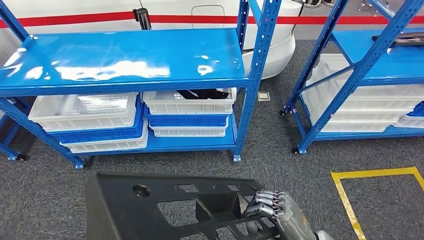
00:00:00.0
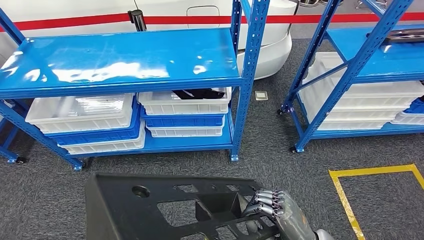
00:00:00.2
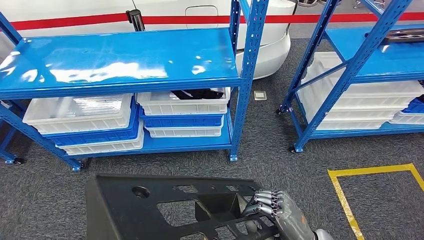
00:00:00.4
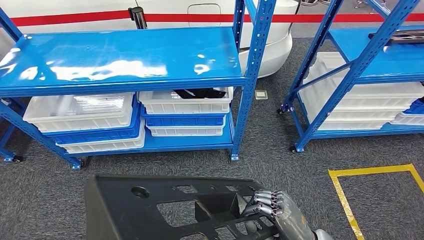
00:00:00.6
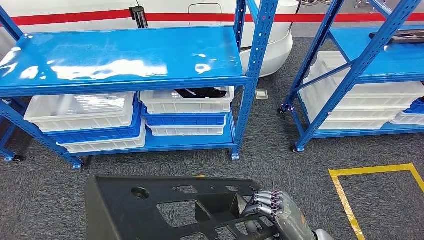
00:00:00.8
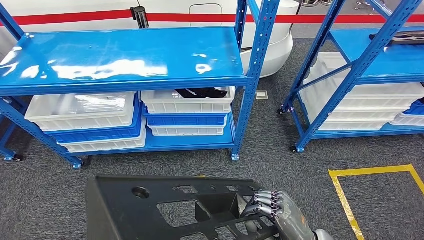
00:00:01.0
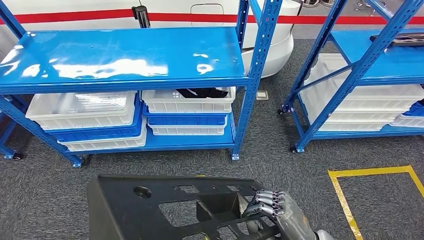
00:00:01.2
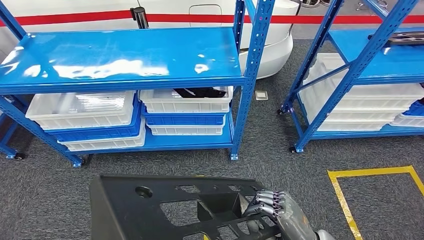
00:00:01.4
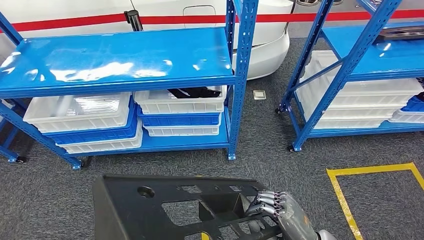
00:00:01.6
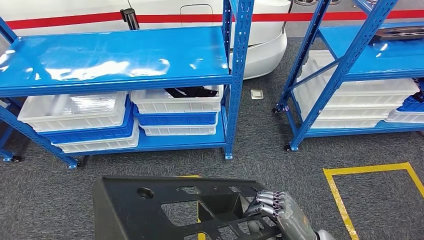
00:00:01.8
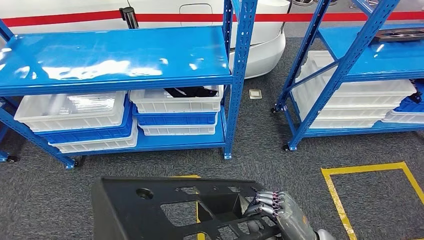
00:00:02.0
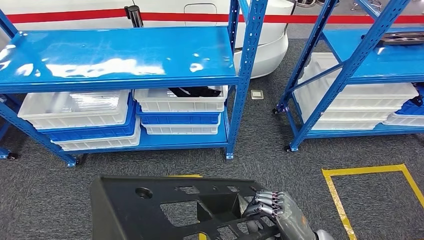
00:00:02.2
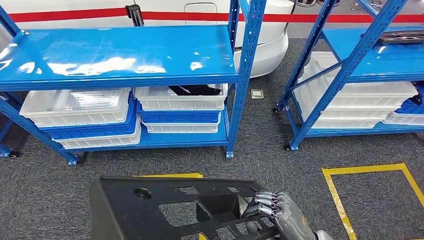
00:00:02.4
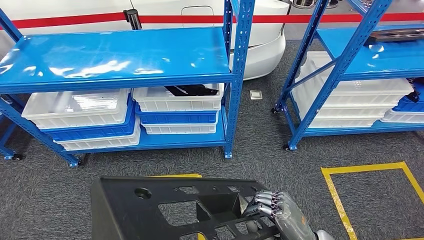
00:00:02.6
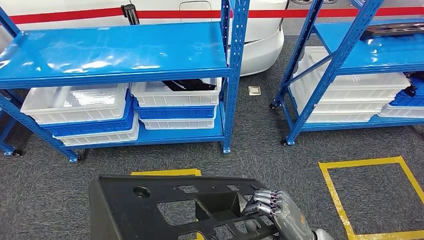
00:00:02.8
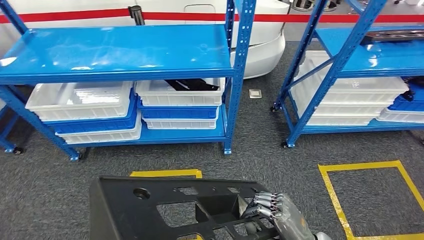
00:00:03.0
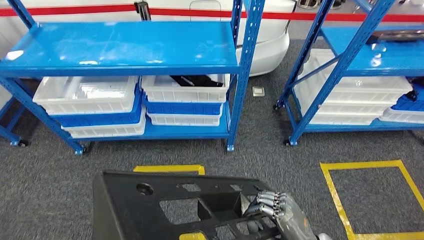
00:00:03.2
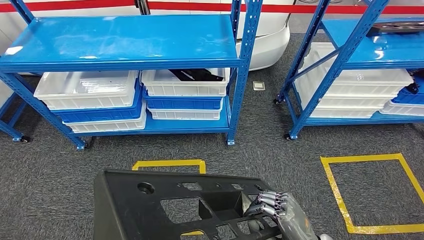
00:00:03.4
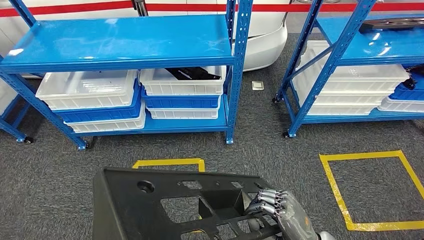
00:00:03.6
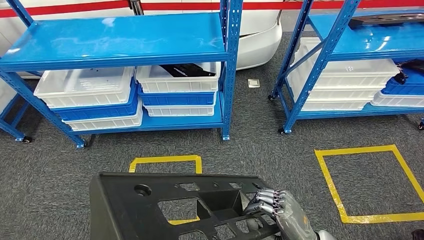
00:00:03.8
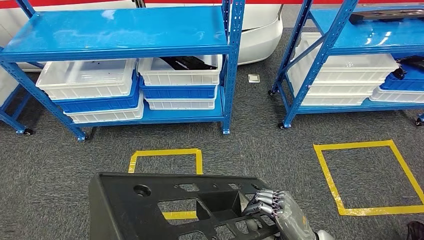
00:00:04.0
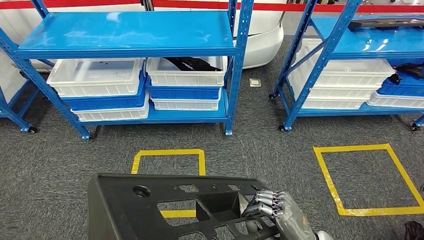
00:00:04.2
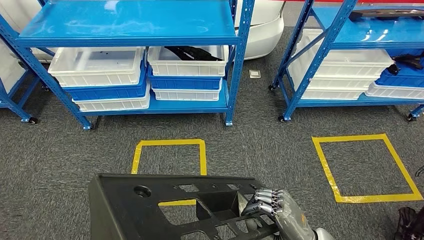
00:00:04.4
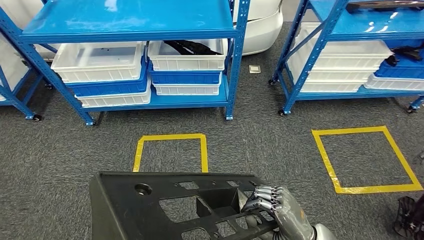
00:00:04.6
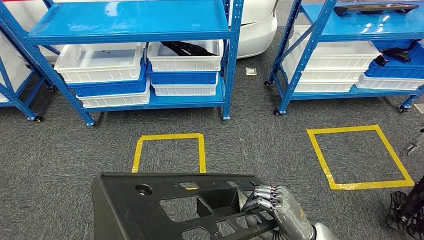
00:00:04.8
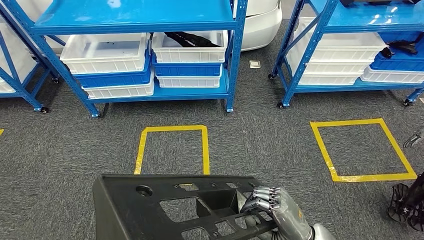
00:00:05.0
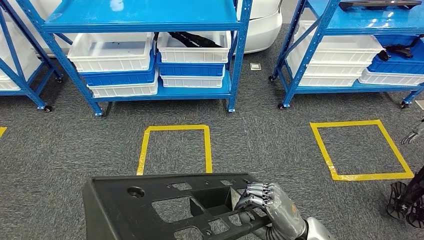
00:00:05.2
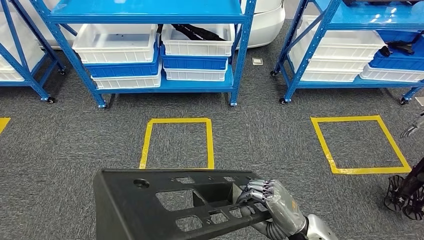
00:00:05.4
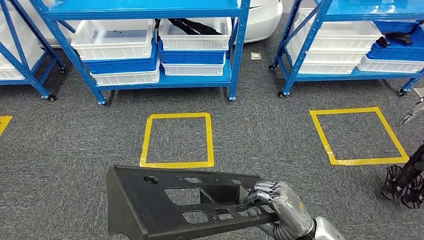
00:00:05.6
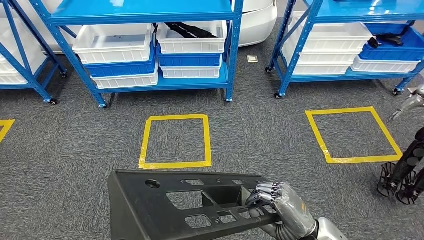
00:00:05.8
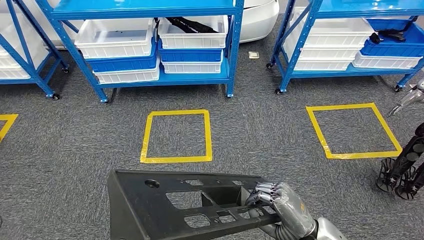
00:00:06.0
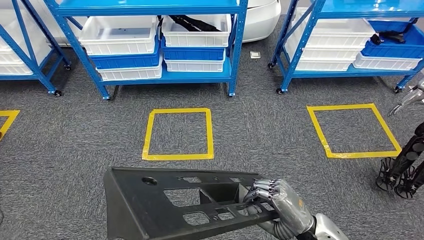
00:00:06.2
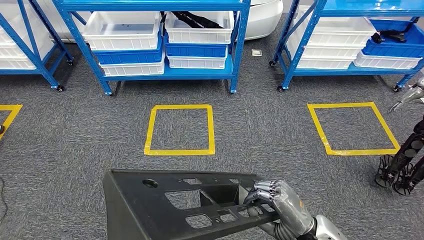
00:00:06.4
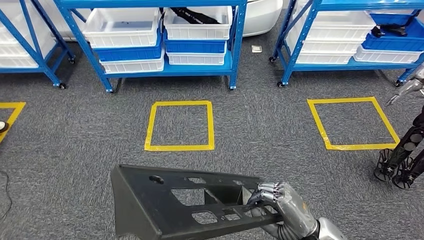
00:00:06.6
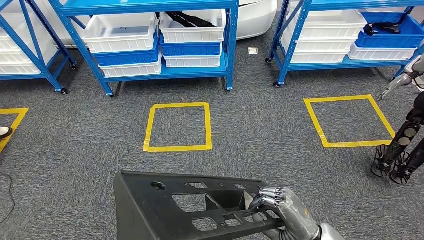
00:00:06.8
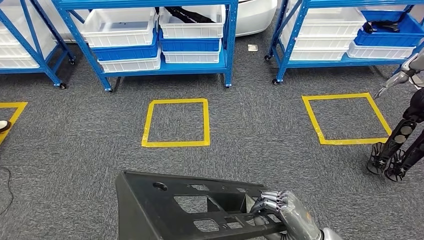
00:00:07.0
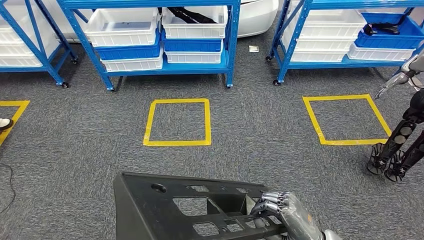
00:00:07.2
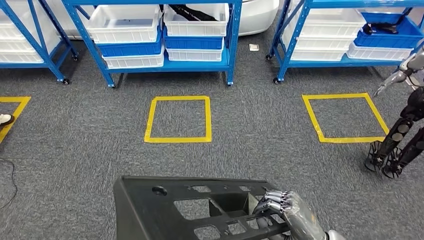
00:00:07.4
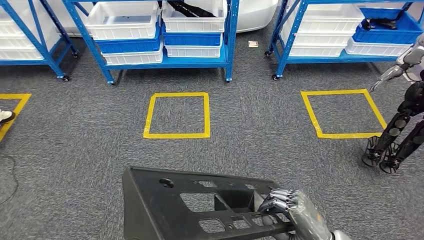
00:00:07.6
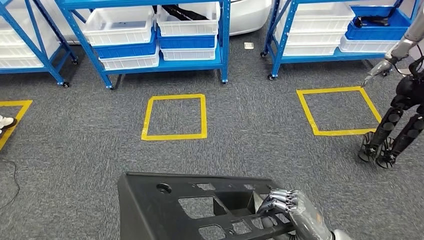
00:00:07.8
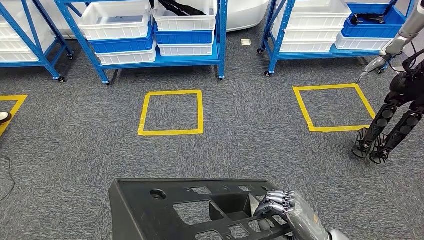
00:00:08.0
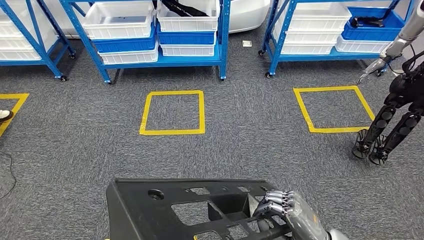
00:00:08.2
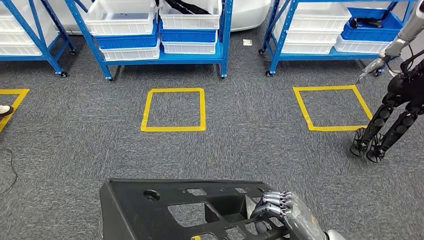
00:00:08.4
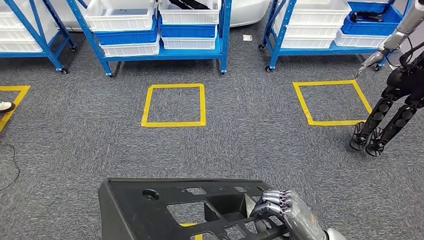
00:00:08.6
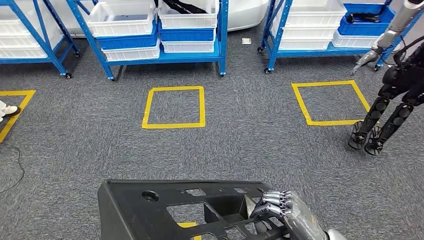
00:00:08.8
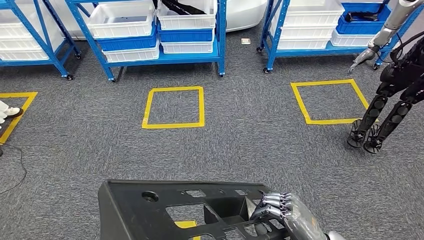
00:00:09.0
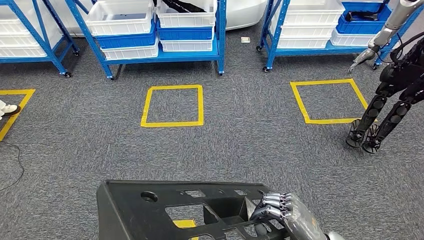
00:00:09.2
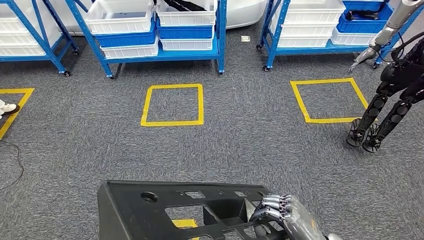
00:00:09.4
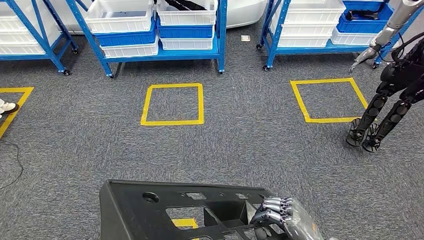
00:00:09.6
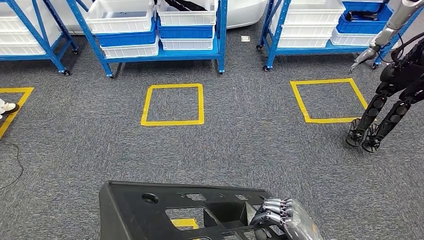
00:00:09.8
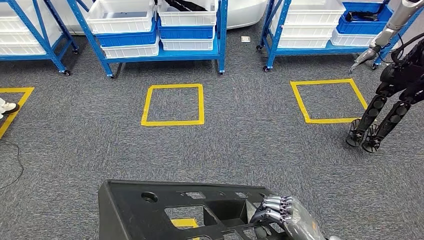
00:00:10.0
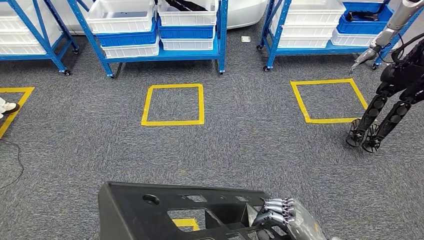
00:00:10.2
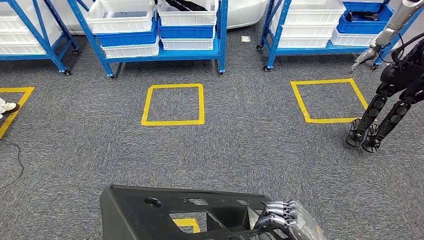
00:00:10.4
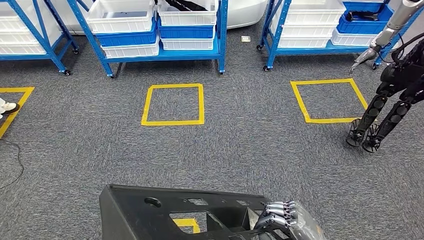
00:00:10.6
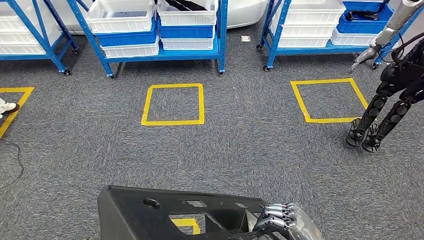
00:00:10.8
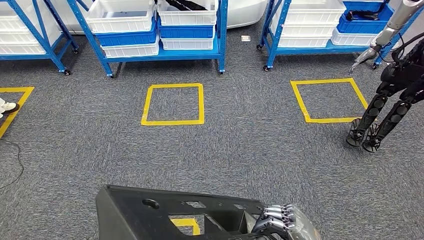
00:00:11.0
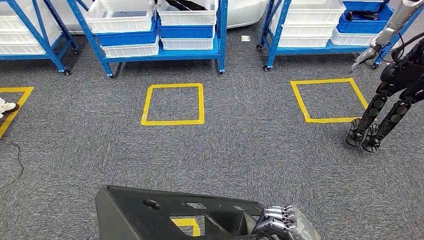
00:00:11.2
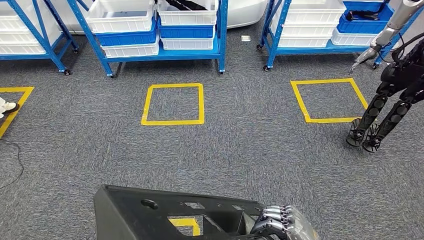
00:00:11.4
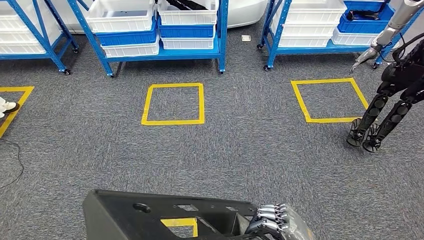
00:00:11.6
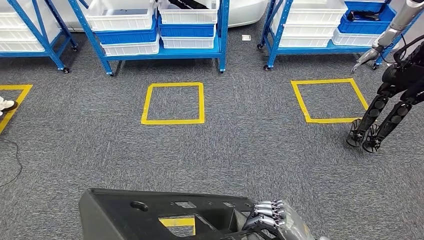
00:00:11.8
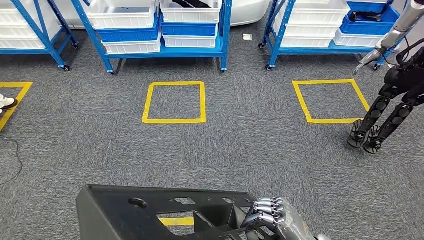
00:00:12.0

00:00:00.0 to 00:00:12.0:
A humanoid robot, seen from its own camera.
00:00:09.0 to 00:00:10.4: There are only small adjustments of the hands.

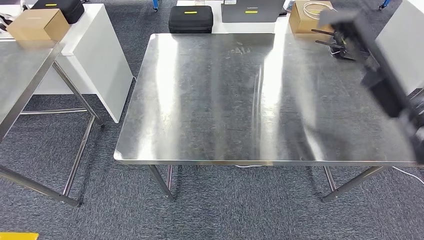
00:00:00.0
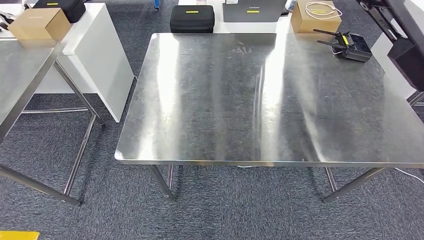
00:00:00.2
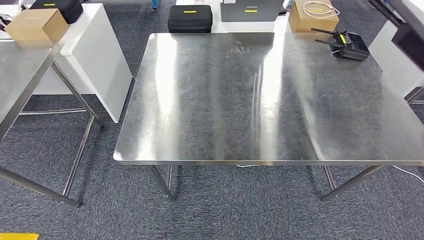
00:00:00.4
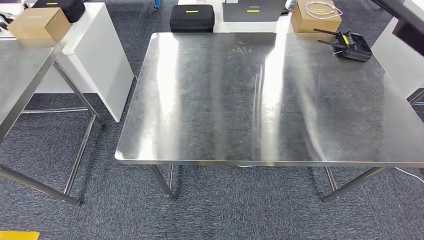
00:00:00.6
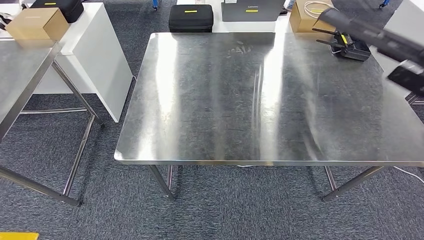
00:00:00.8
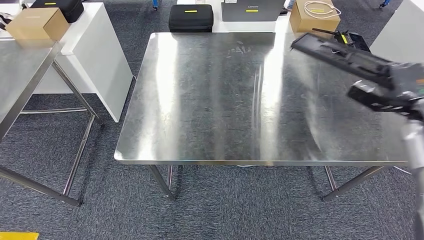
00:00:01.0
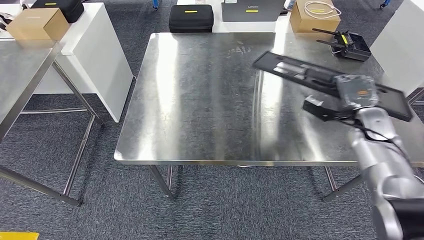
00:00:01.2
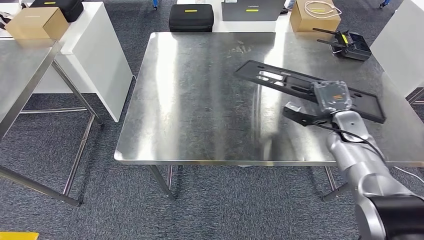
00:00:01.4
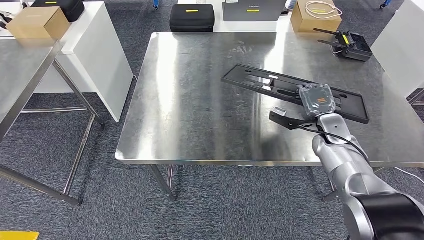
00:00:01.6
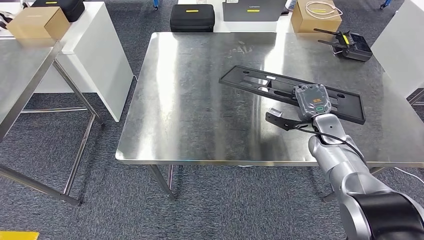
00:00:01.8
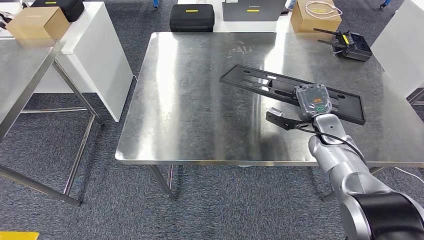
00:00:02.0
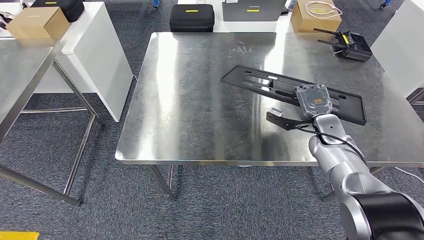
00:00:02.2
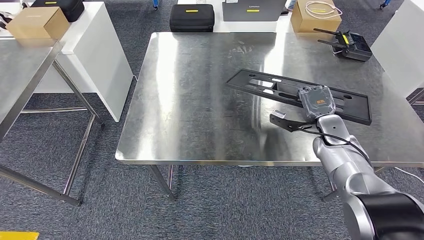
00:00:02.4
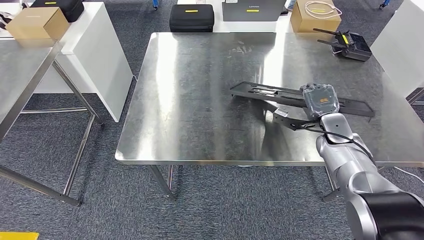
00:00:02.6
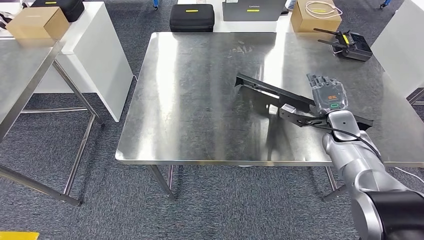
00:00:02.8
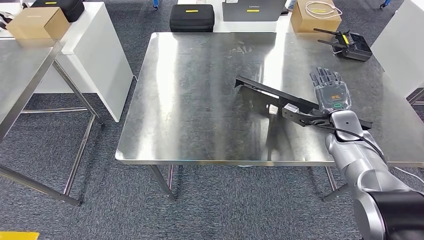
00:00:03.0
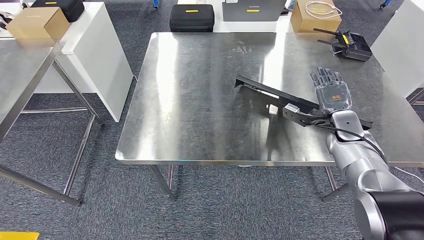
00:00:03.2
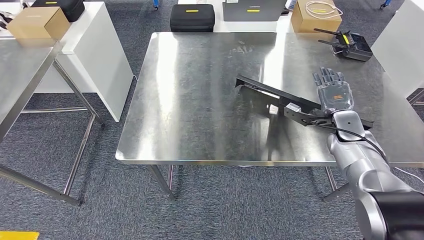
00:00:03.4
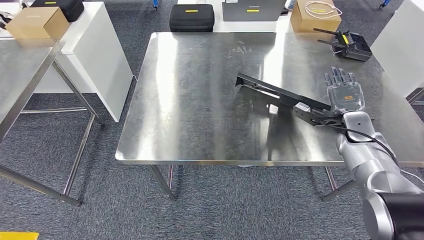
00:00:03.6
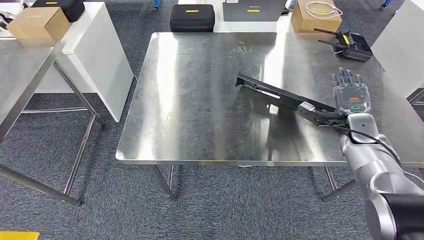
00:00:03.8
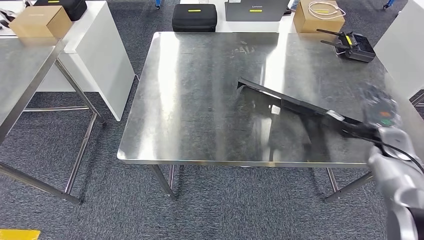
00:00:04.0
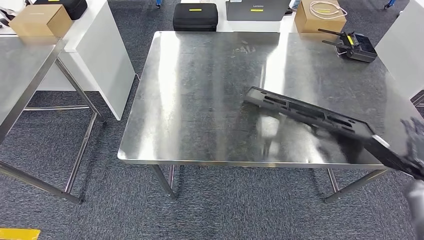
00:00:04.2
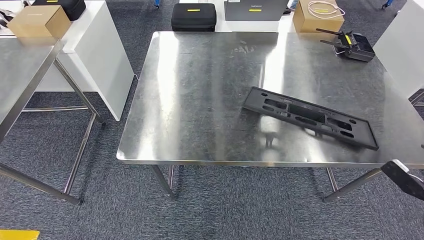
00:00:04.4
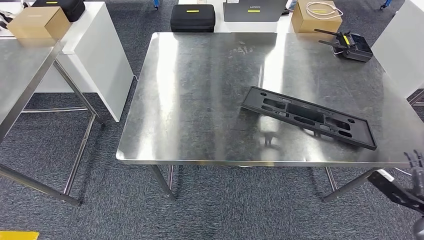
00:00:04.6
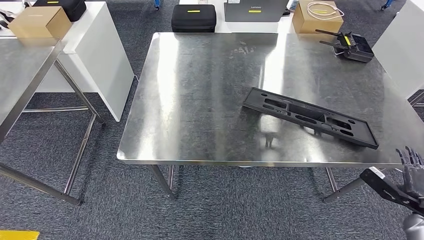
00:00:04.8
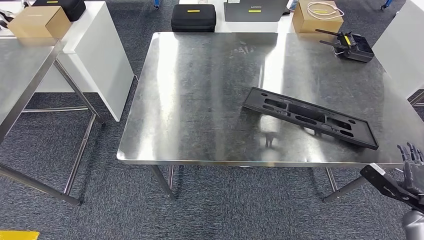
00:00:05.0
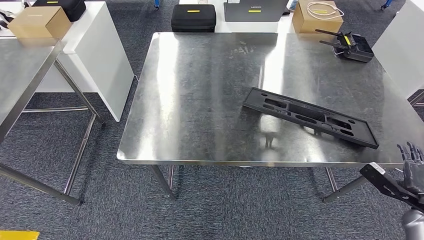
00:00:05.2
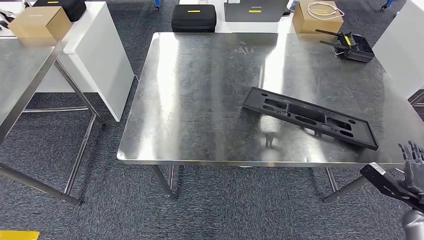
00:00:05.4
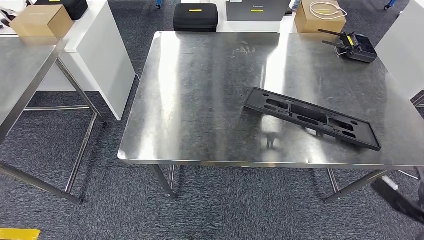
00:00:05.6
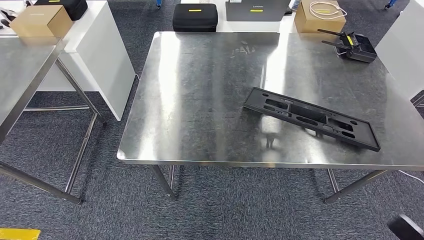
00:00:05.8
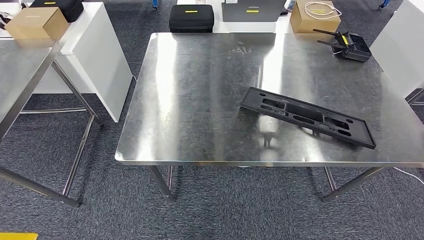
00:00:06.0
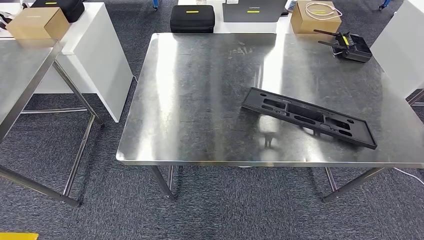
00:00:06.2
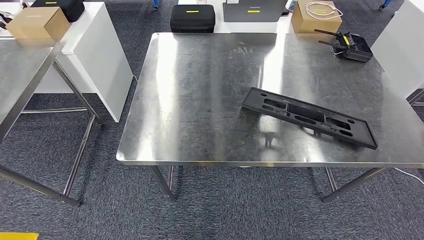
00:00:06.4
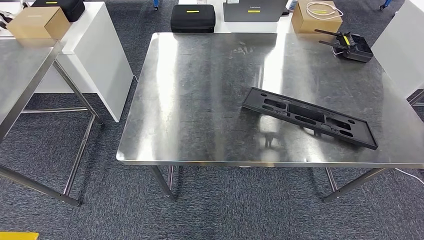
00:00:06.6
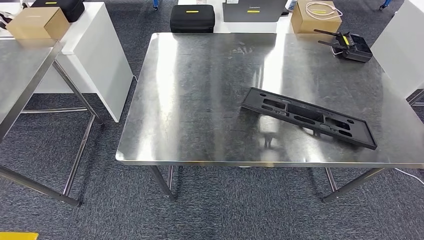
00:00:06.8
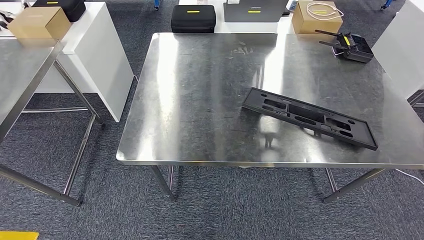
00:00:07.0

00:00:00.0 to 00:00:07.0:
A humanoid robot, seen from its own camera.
Step, 00:00:00.0 to 00:00:05.8: Insert the large material into the corresponding slot on the workbench.
00:00:01.4 to 00:00:02.8: The hands move only a little.
00:00:02.8 to 00:00:04.2: The right hand travels to the right and backward by roughly 25 cm.
00:00:04.2 to 00:00:05.6: The right hand travels backward by roughly 10 cm.
00:00:05.6 to 00:00:07.0: The right hand shifts approximately 25 cm backward, to the left and upward.
